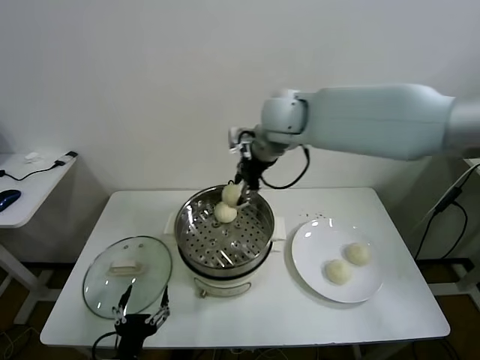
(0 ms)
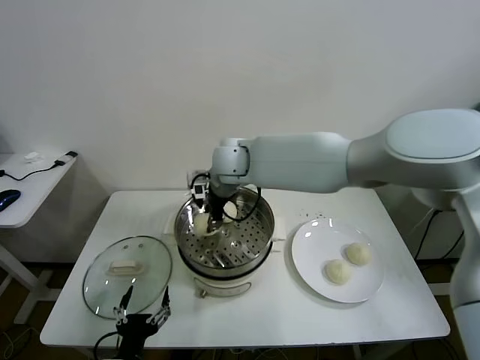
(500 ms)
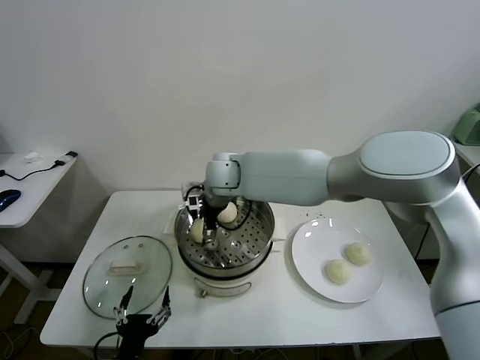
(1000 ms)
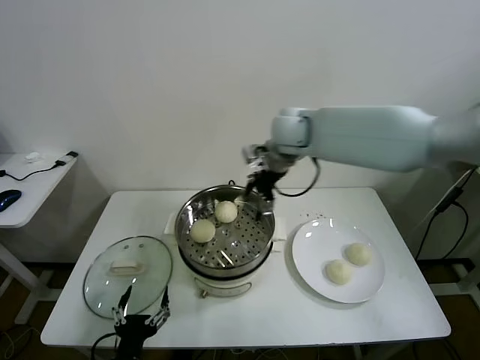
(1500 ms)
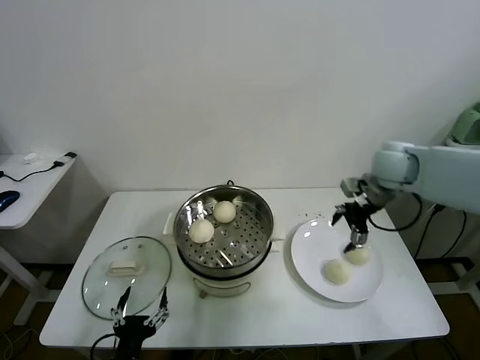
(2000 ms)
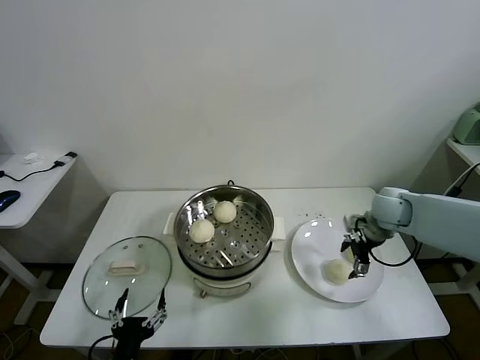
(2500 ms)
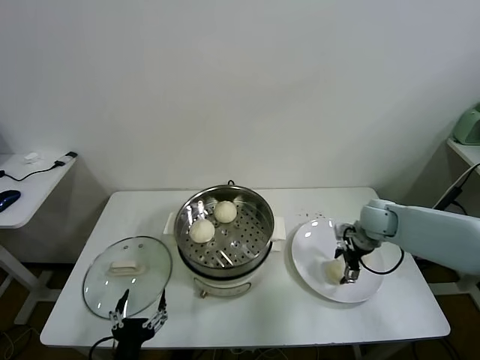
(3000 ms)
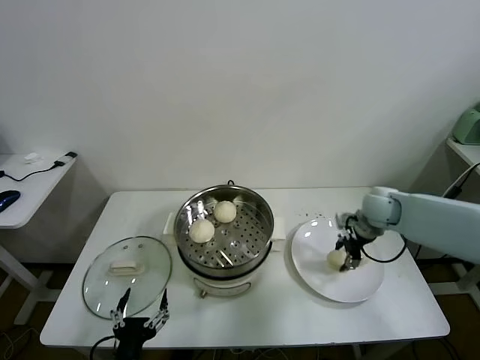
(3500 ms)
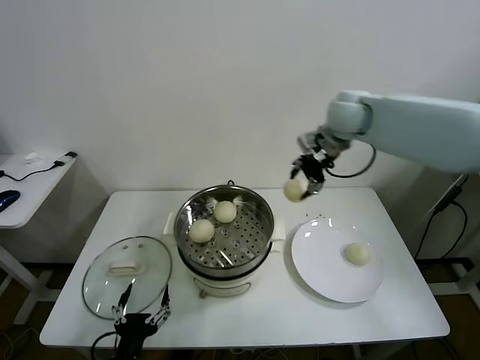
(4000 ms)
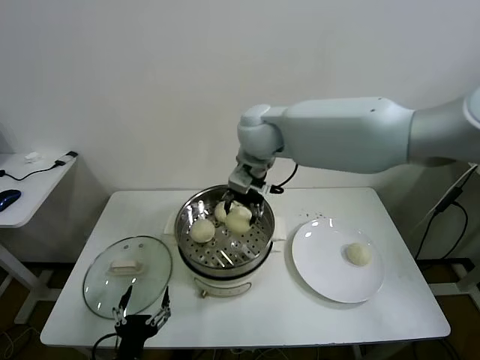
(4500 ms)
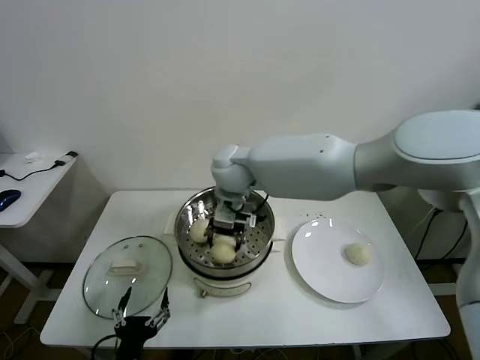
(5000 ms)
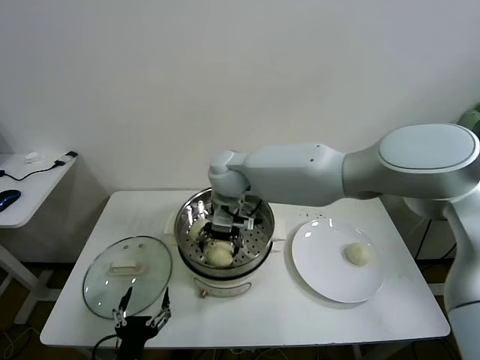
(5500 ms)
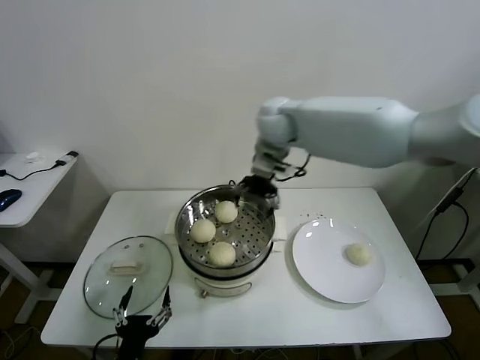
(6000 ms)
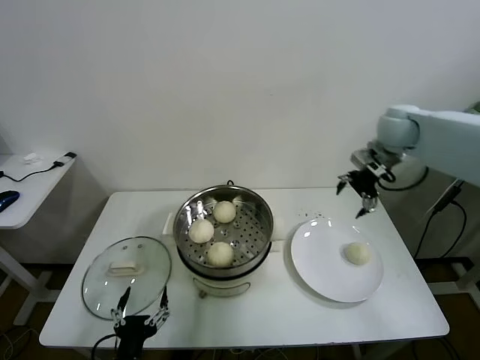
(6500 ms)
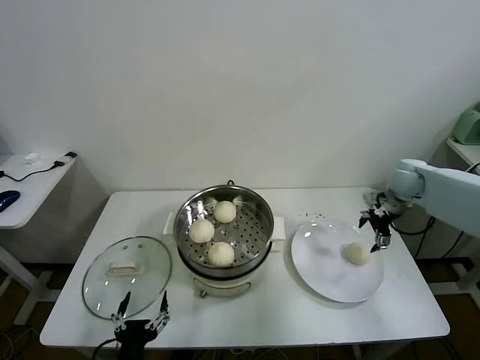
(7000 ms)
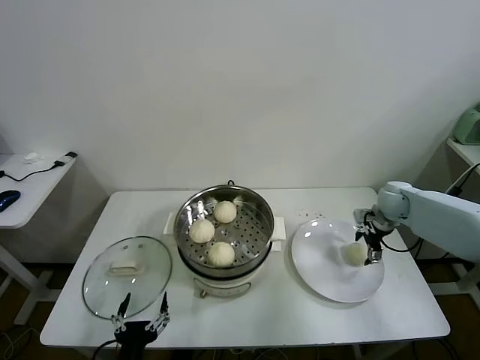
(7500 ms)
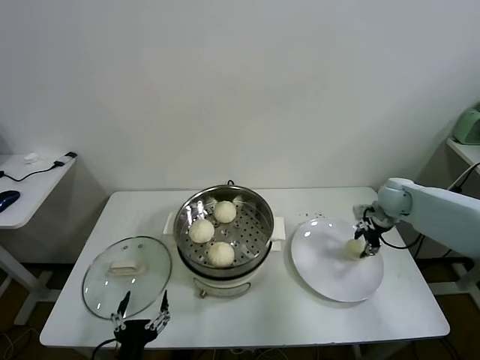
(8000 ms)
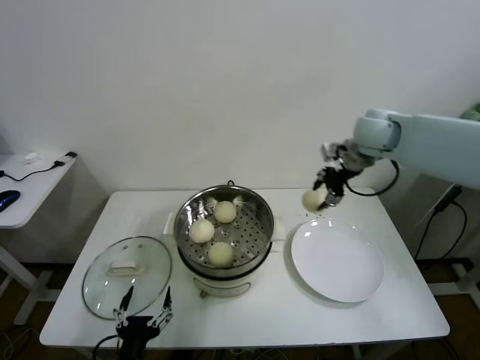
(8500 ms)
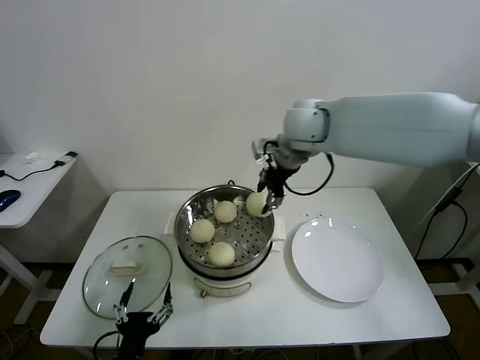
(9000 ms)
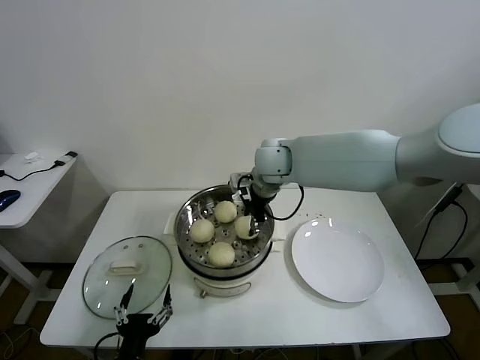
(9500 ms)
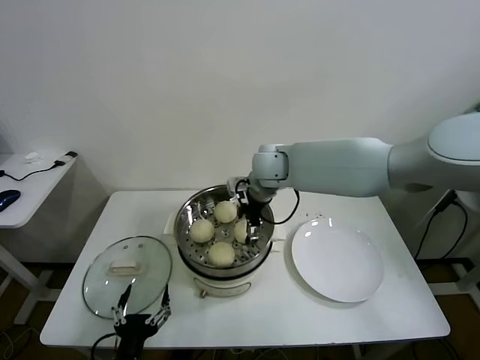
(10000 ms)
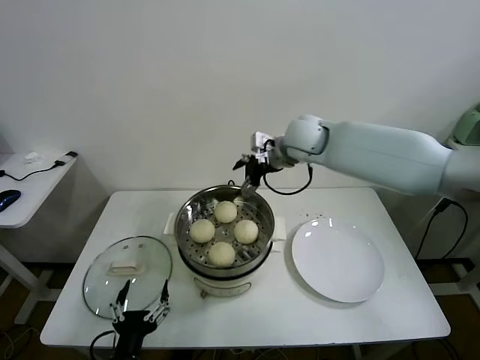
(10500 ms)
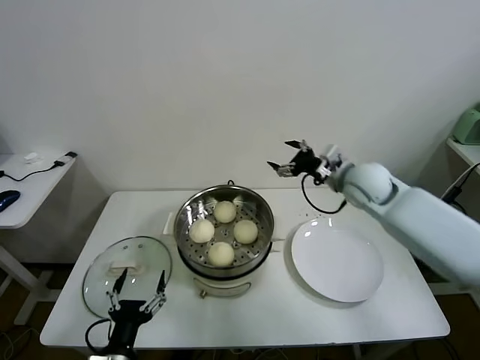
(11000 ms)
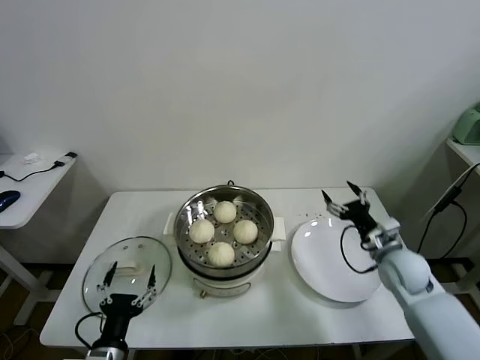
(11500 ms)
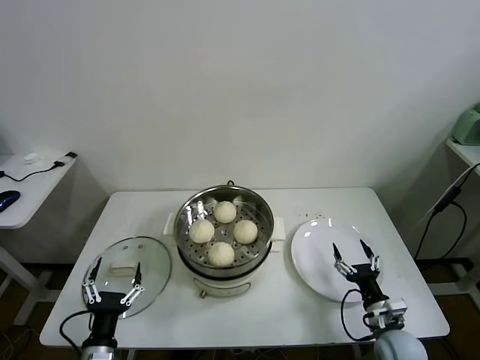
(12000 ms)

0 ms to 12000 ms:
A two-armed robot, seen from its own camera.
Task of the whole recording: take steamed baozi put them in steamer.
Step, 1500 ms to 3000 ms: Grasp the baozi in the plate with right gripper.
Step, 3500 ms to 5000 ms: Place the baozi on the steamer with right gripper.
Step, 5500 ms to 7500 ms: Grasp the baozi in the plate with right gripper.
Step, 8000 ms to 10000 ms: Place the baozi on the steamer with right gripper.
0 ms to 2000 ms: The right gripper shifts about 30 cm to the right and downward, and opens its fingers.
2000 ms to 4000 ms: The right gripper goes approximately 20 cm to the left, upward and forward, and closes its fingers.
4000 ms to 6000 ms: The right gripper is displaced to the left by roughly 10 cm, and opens its fingers.
6000 ms to 8000 ms: The right gripper goes approximately 35 cm to the right and downward, and closes its fingers.
8000 ms to 10000 ms: The right gripper travels to the left by about 35 cm, and opens.
10000 ms to 12000 ms: The right gripper travels downward, backward and to the right by roughly 50 cm; the left gripper shifts about 5 cm to the left.

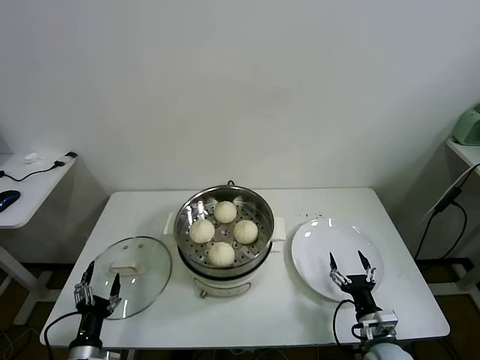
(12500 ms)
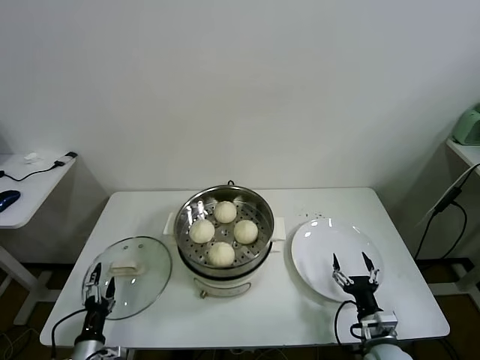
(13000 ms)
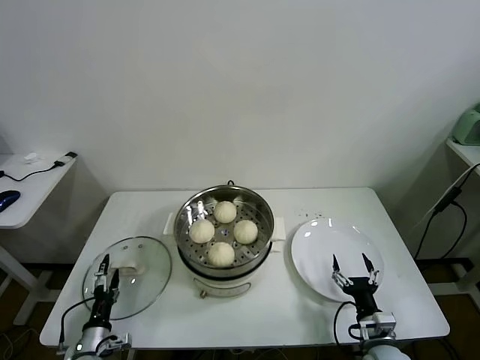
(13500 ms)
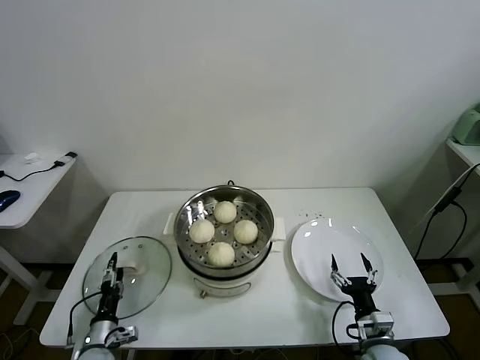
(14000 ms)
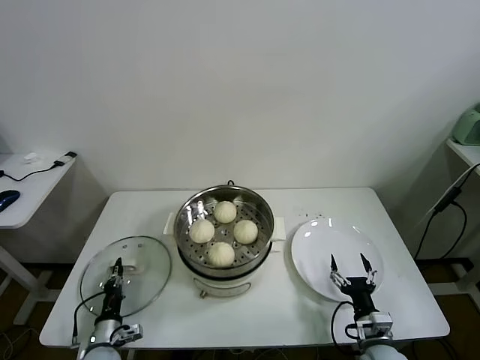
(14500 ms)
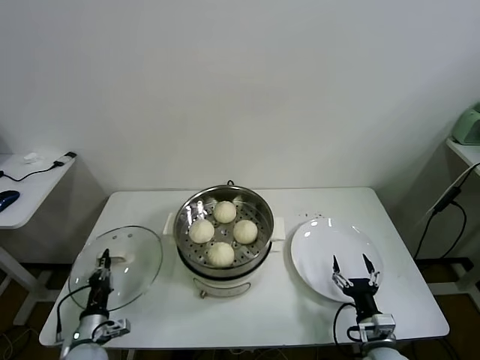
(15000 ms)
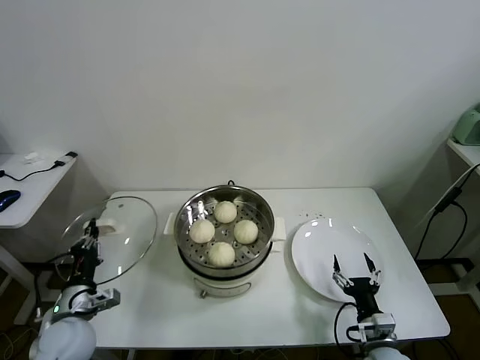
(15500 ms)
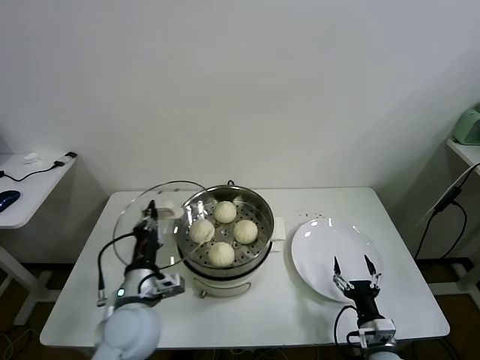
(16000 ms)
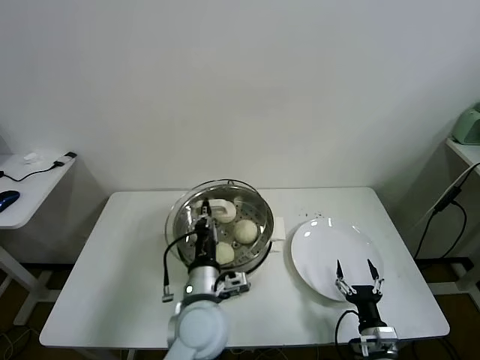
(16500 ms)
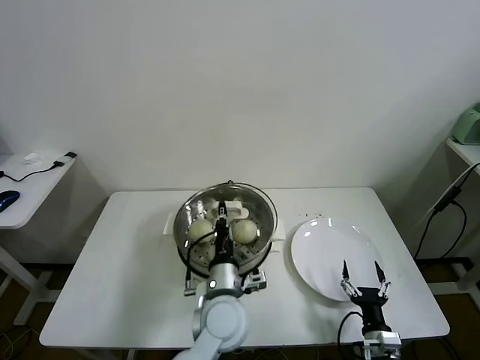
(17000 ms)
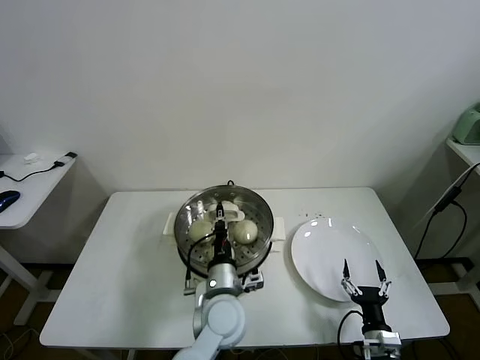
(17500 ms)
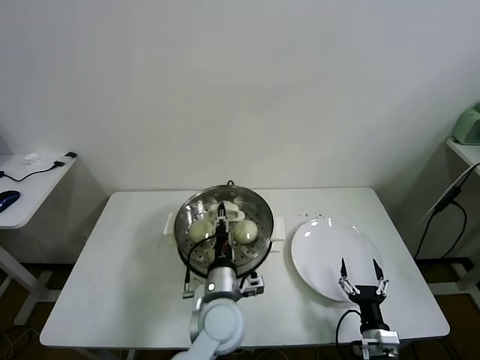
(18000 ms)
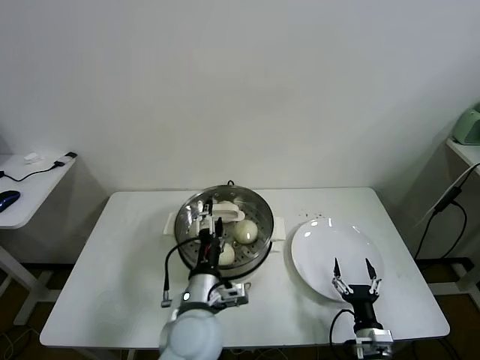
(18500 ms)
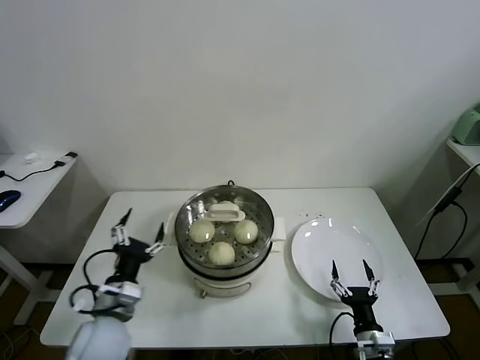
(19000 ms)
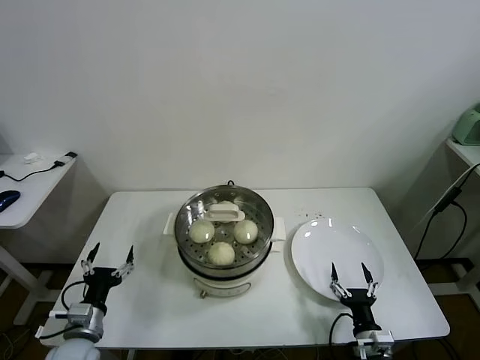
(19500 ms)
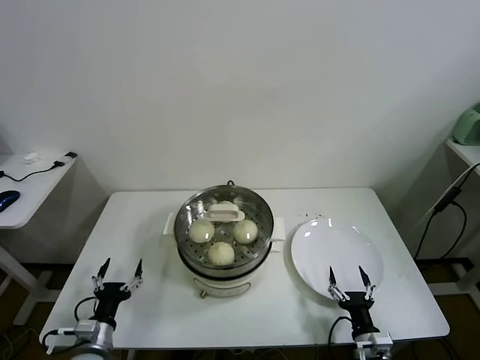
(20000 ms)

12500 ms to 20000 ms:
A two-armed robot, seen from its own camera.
Task of the whole recording: take steamed baozi put them in steamer.
Step, 12500 ms to 14500 ms: Grasp the pot lid with left gripper.
Step, 15000 ms to 18000 ms: Place the pot lid on the steamer with left gripper.
12500 ms to 14500 ms: The left gripper shifts approximately 10 cm downward and forward, and closes up.
14500 ms to 16500 ms: The left gripper travels to the right and upward by some 35 cm.
16500 ms to 18000 ms: The left gripper changes place by roughly 5 cm.
18000 ms to 20000 ms: The left gripper goes about 30 cm to the left, and opens up.

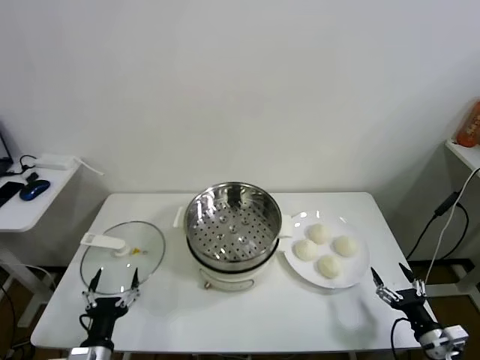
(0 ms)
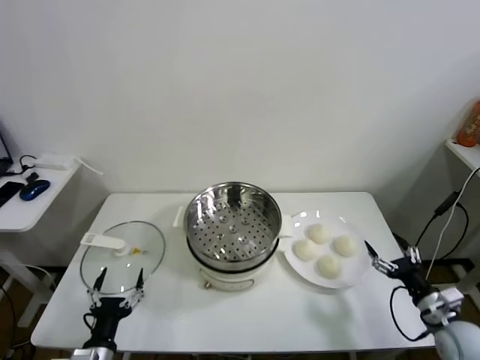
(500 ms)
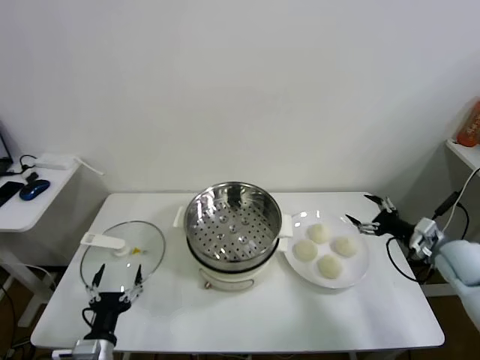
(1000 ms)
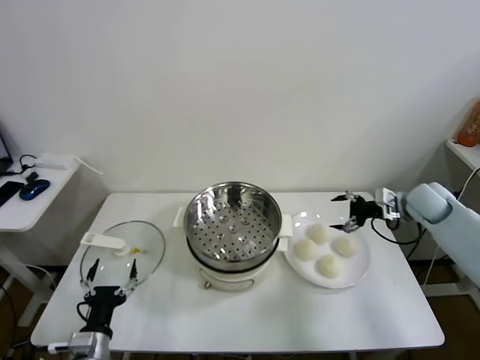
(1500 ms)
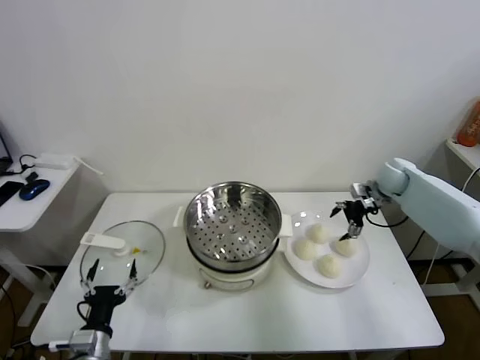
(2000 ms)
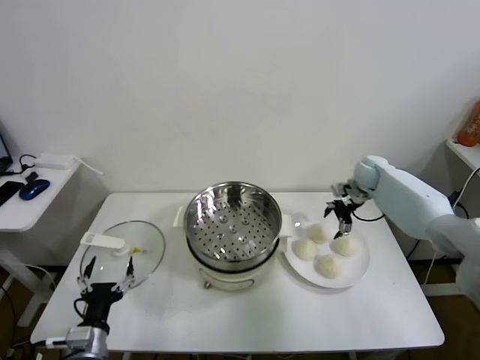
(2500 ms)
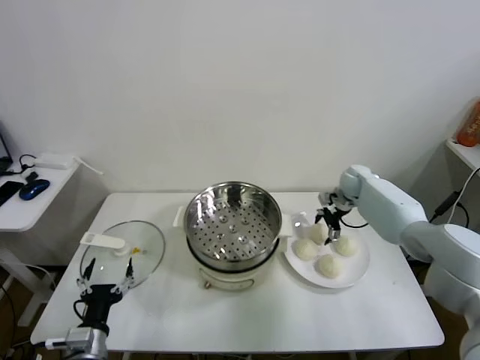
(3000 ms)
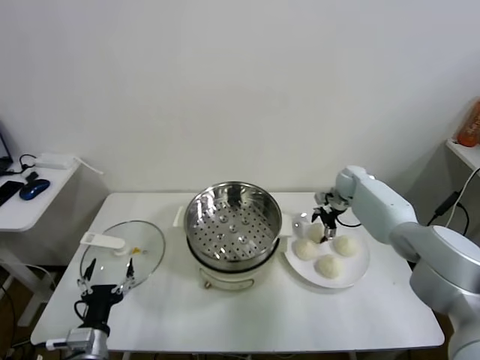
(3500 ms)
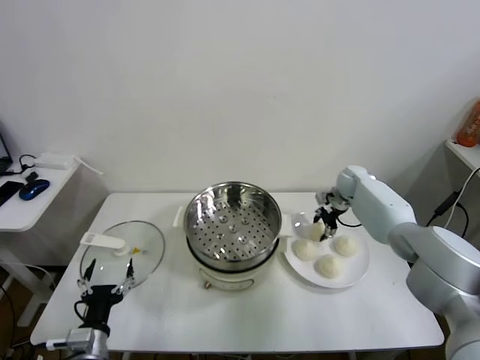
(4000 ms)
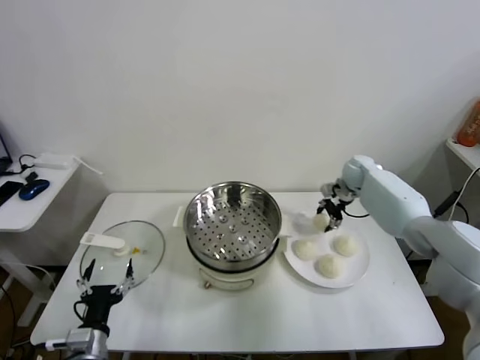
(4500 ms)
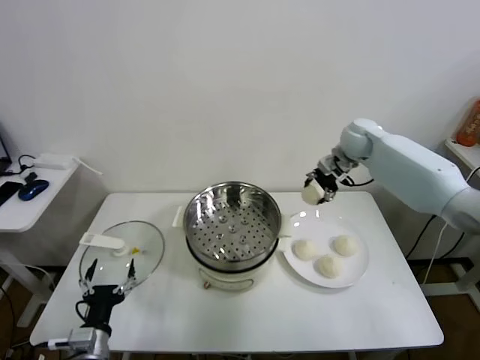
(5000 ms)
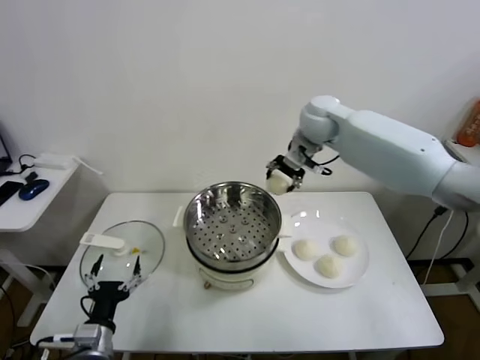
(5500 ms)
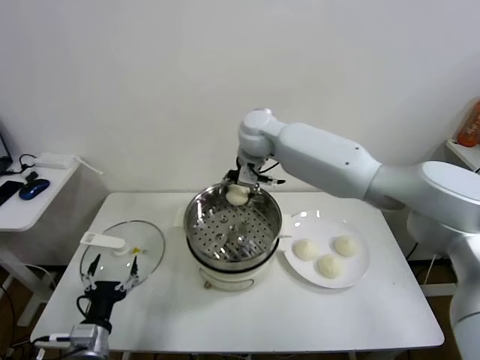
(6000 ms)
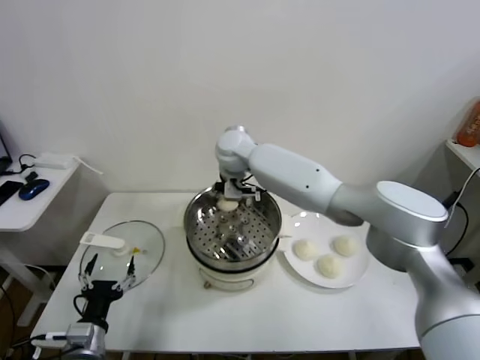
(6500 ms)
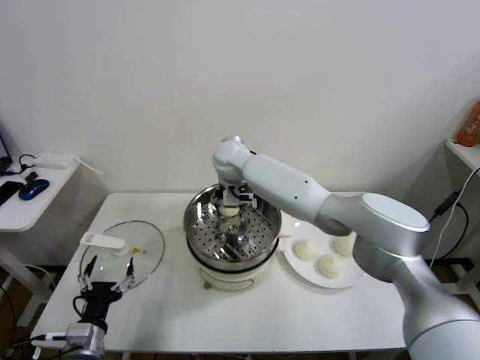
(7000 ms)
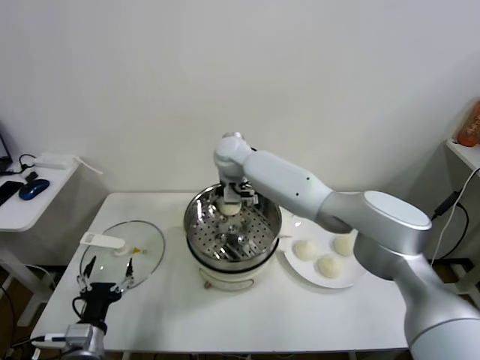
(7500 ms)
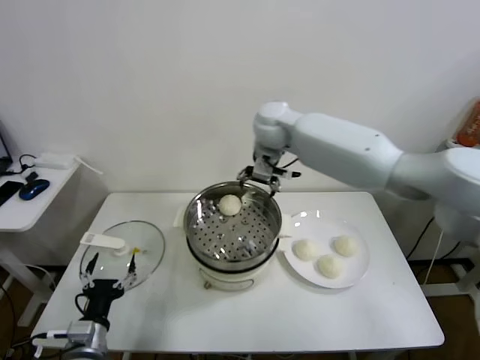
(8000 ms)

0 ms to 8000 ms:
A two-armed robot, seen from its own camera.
Task of the whole recording: take steamed baozi put them in steamer.
Step, 0 ms to 3500 ms: Grasp the baozi in the plate with right gripper.
Step, 4000 ms to 7500 ms: Place the baozi on the steamer with right gripper.
2000 ms to 4000 ms: The right gripper goes roughly 10 cm downward and to the left, and closes.
4000 ms to 6000 ms: The right gripper heads to the left and upward, covering approximately 35 cm.
6000 ms to 8000 ms: The right gripper travels to the right by approximately 10 cm, and opens.
